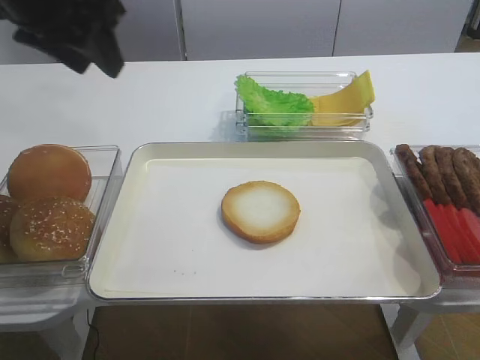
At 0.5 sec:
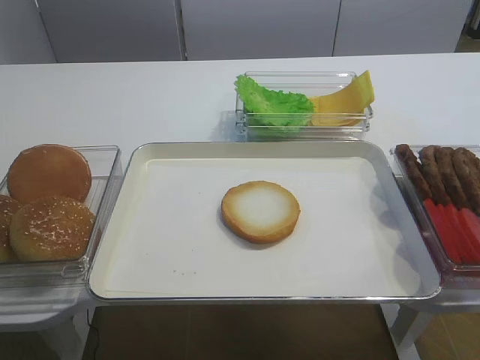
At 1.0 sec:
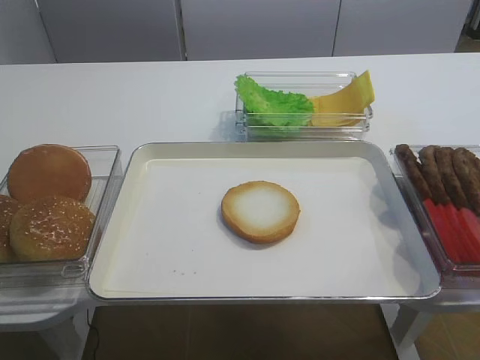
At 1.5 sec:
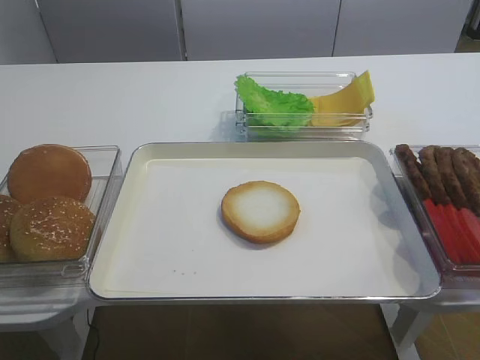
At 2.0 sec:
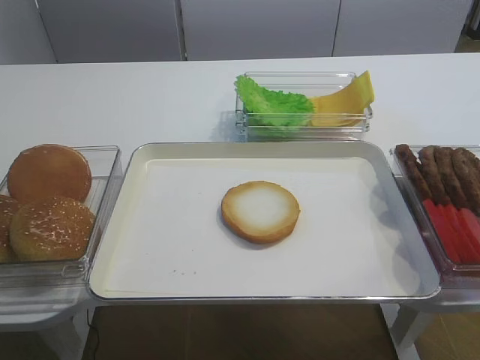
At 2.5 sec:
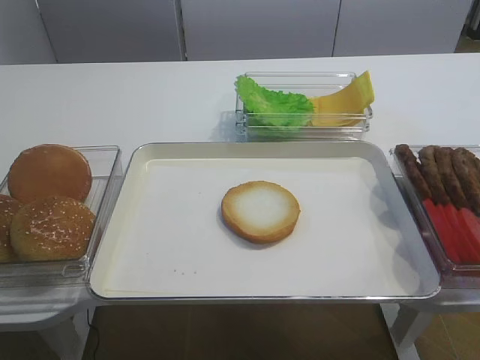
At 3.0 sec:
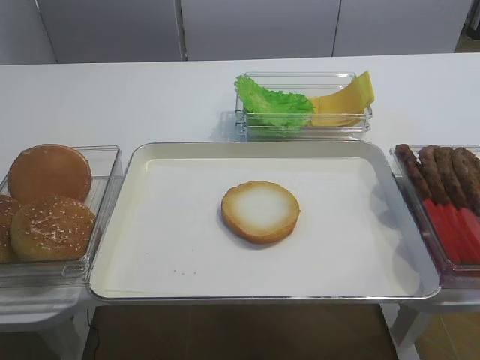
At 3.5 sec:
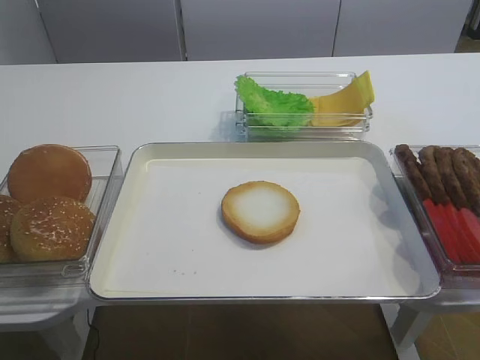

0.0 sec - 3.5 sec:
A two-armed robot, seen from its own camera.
0.0 sec - 2.0 sec: The left gripper heads backward, covering some 35 cm.

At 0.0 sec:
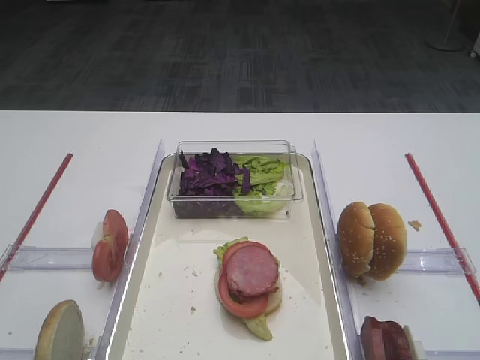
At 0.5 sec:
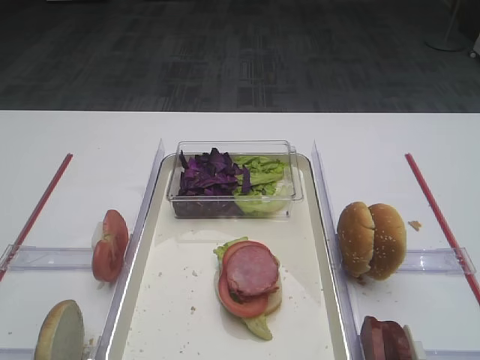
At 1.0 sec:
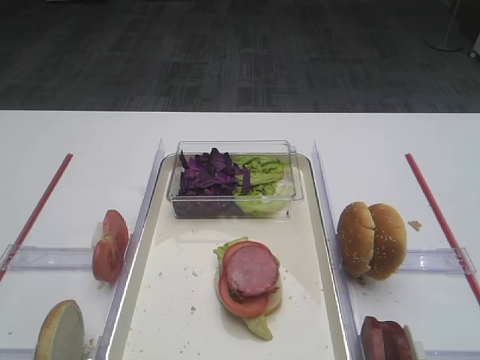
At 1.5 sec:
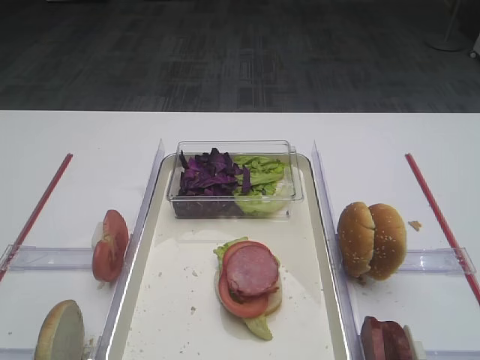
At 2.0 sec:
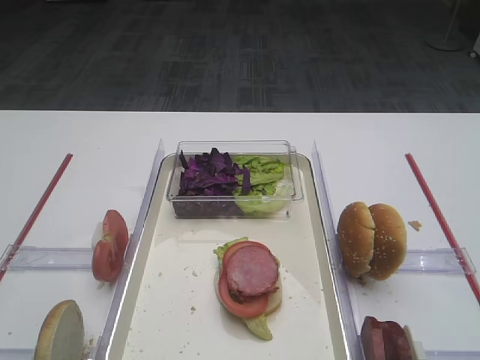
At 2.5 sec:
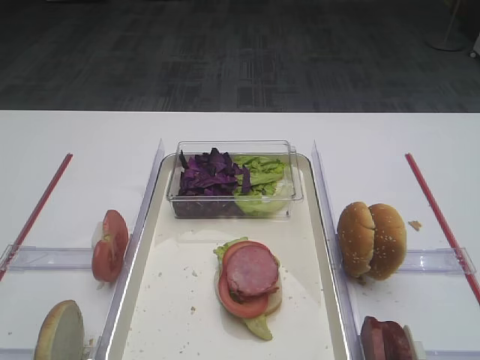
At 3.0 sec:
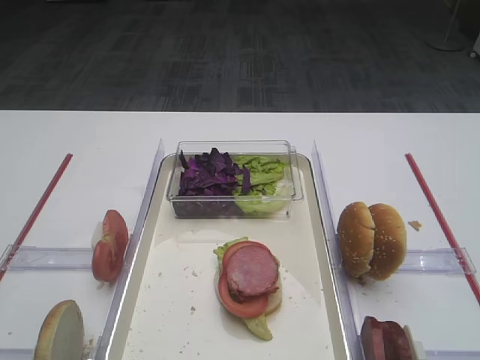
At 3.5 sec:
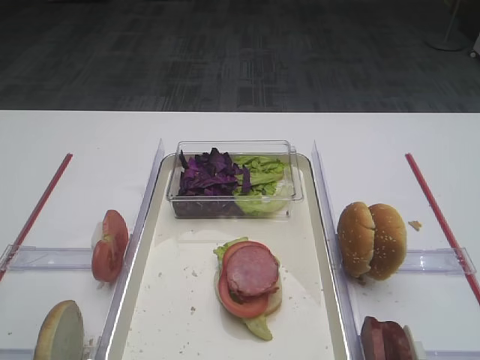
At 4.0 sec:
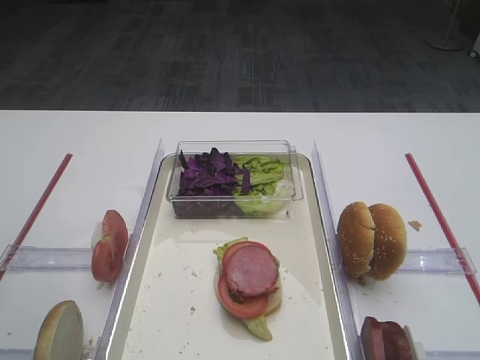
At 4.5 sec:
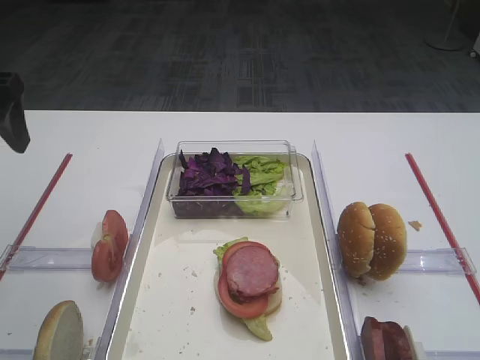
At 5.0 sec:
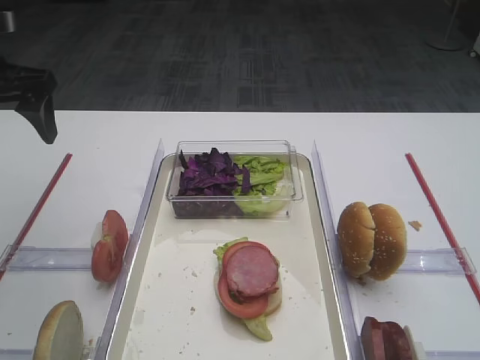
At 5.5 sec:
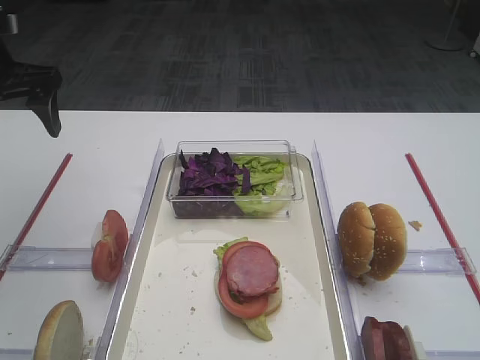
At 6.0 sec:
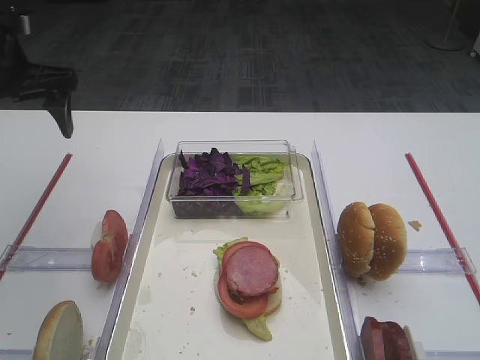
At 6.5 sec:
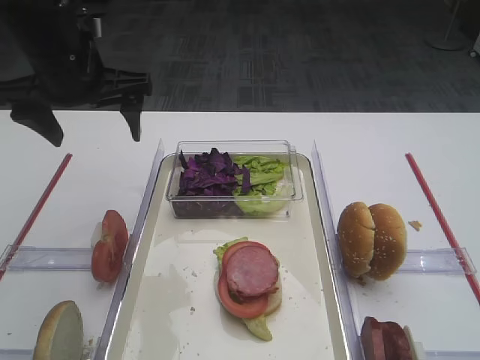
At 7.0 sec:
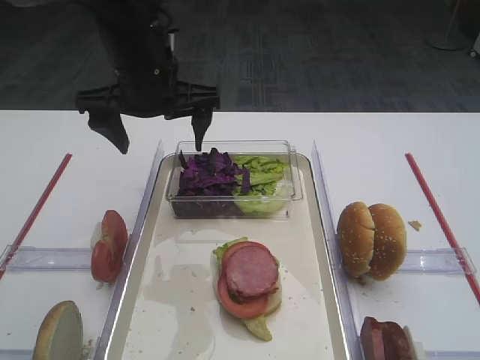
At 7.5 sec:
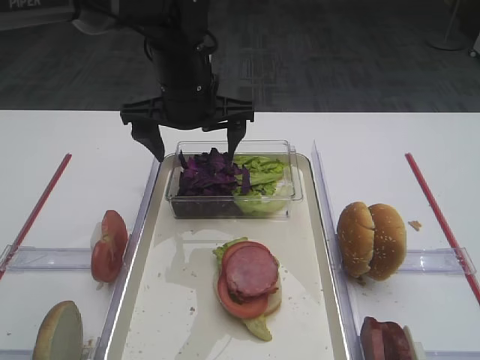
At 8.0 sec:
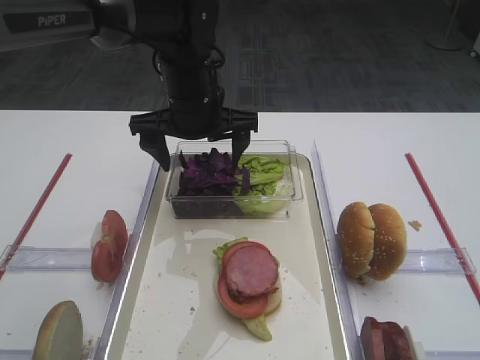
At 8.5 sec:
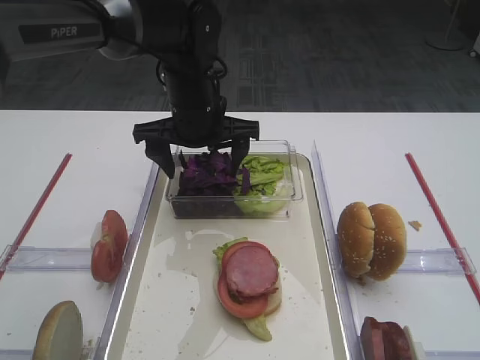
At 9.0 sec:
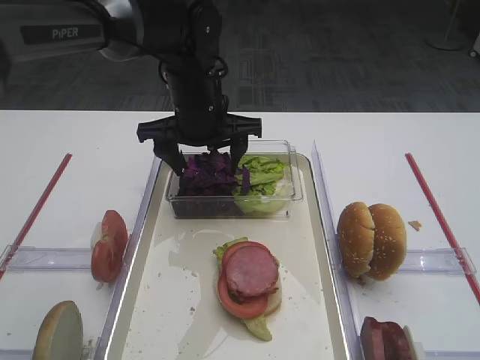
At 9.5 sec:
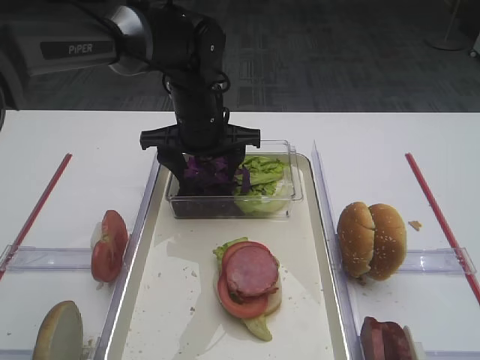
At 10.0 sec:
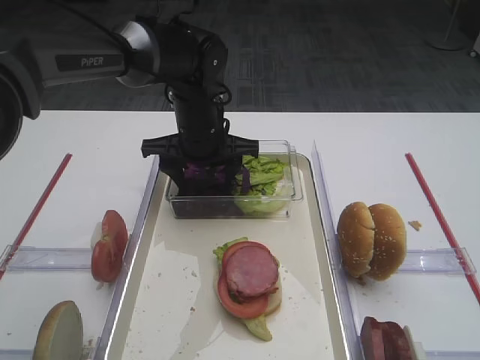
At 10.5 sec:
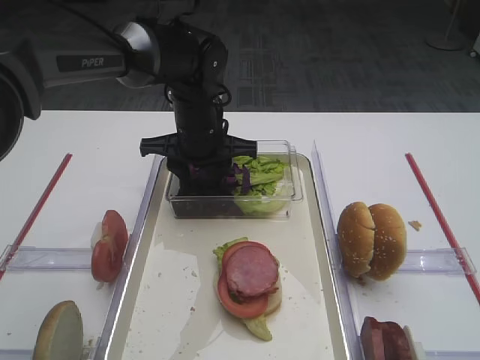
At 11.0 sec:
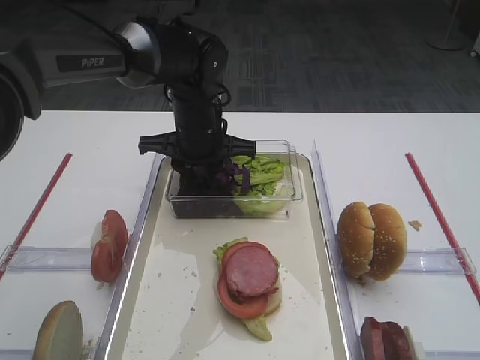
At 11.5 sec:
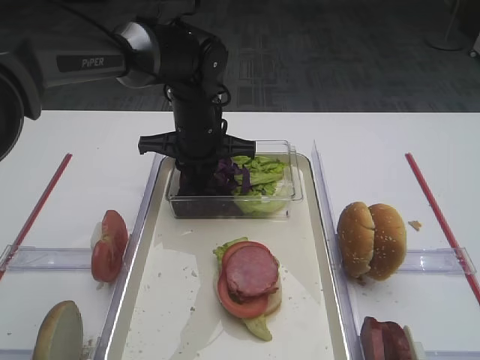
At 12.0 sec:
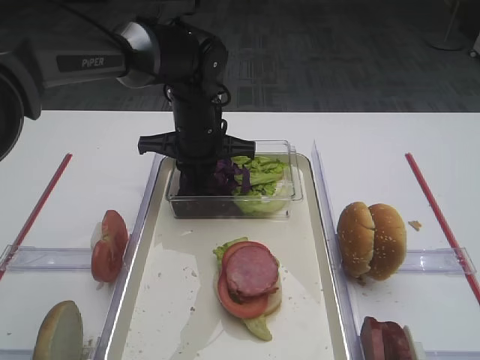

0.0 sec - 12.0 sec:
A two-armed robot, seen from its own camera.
4.0 sec - 6.0 sec: The left gripper is displaced forward by about 15 cm.
6.0 sec - 8.0 sec: The left gripper is displaced to the right by approximately 20 cm.
8.0 sec - 10.0 sec: The left gripper shifts some 5 cm downward.
10.0 sec - 12.0 sec: The left gripper closes up.

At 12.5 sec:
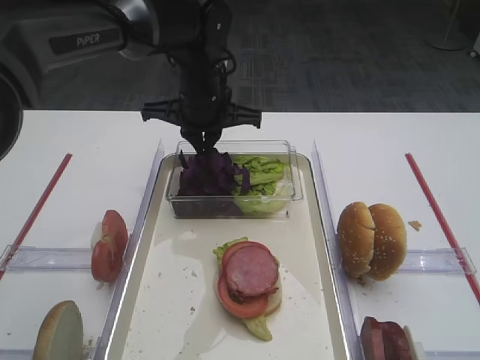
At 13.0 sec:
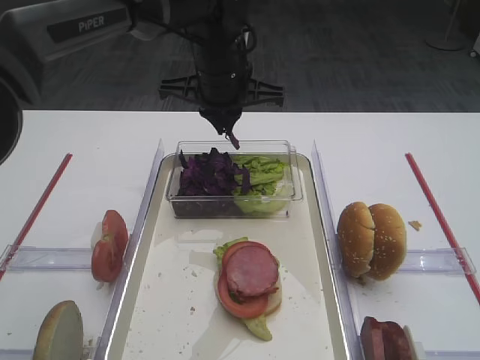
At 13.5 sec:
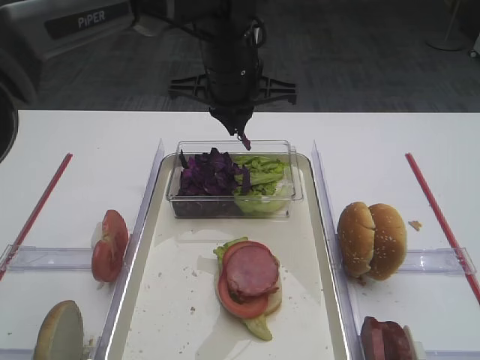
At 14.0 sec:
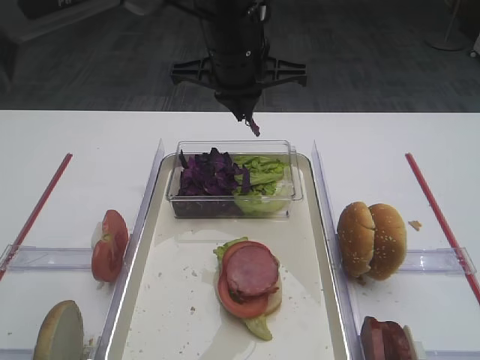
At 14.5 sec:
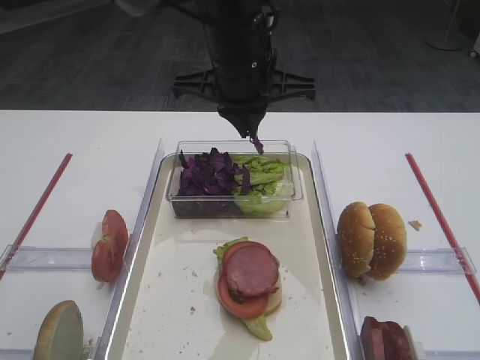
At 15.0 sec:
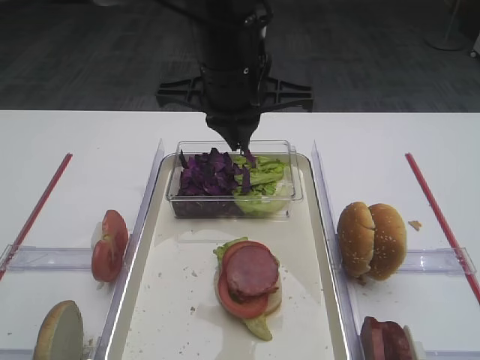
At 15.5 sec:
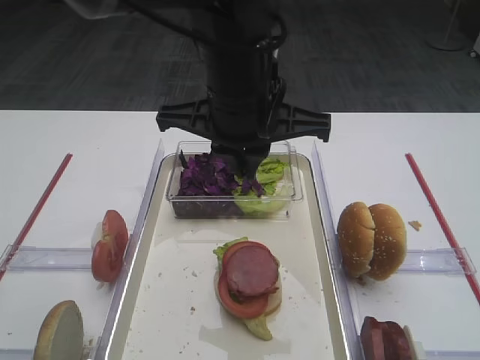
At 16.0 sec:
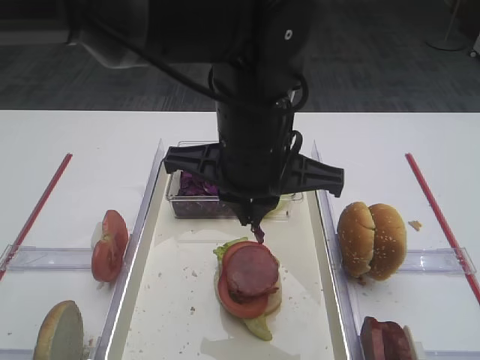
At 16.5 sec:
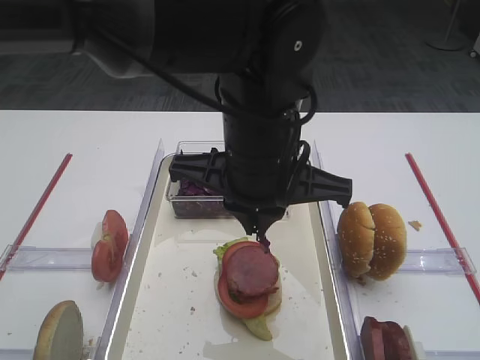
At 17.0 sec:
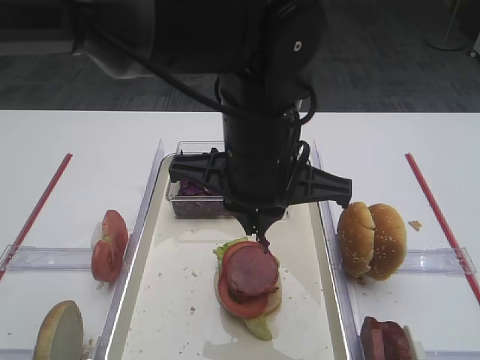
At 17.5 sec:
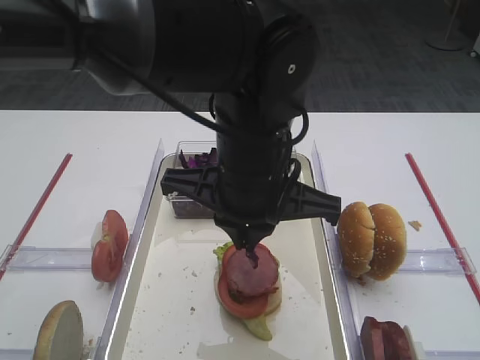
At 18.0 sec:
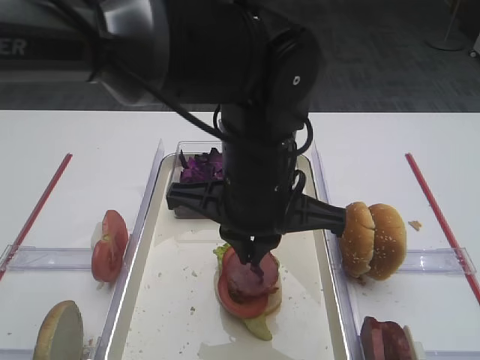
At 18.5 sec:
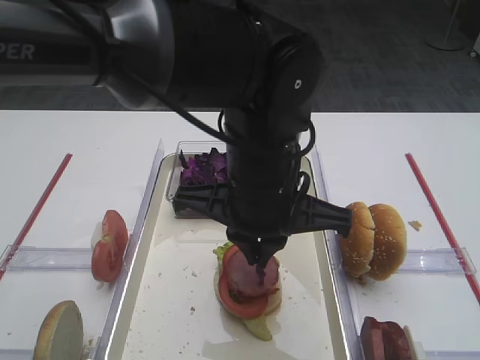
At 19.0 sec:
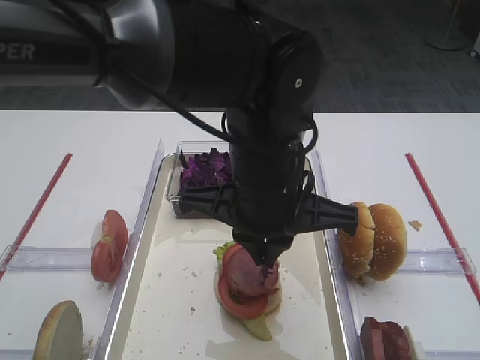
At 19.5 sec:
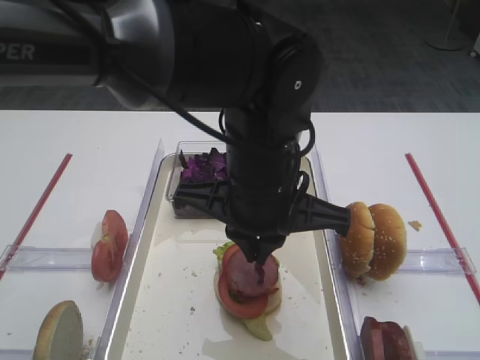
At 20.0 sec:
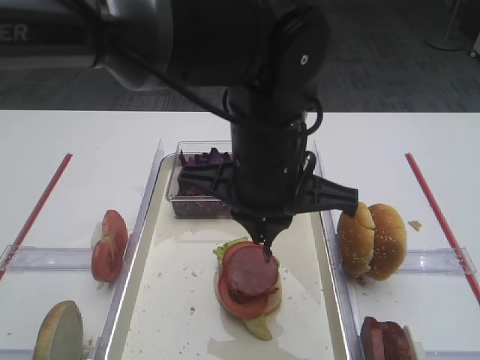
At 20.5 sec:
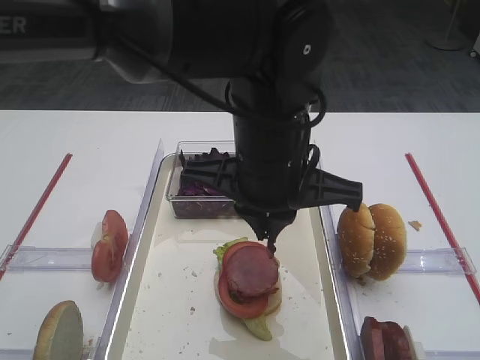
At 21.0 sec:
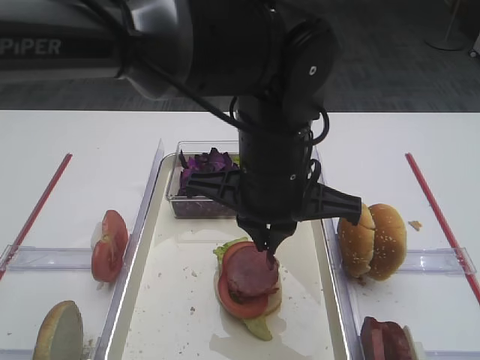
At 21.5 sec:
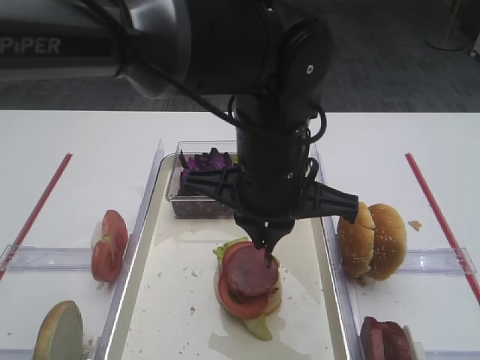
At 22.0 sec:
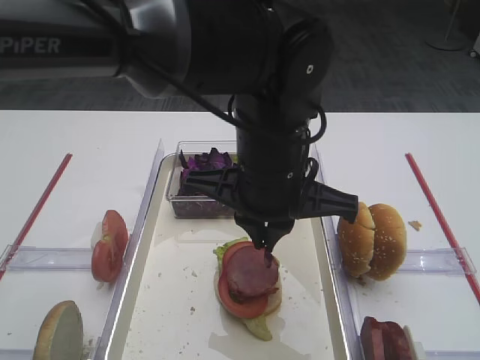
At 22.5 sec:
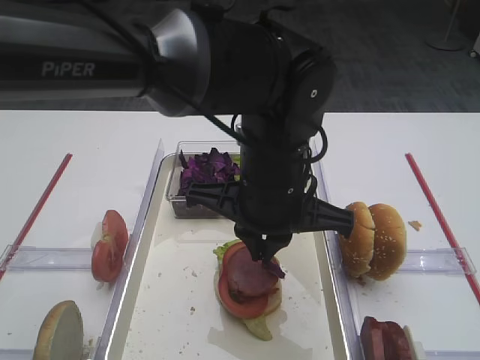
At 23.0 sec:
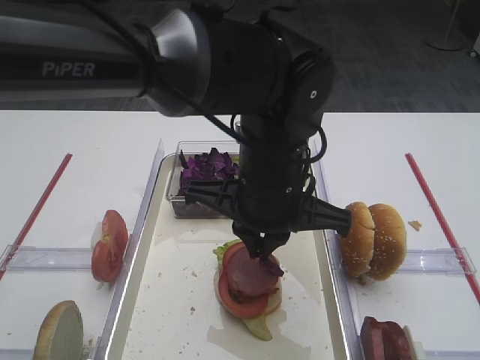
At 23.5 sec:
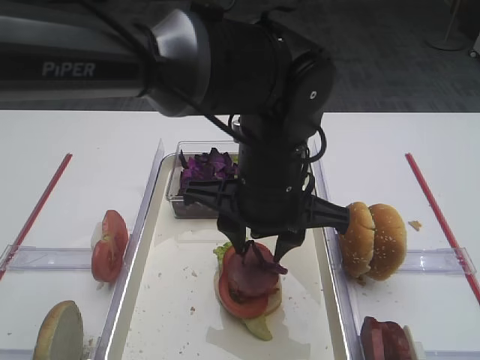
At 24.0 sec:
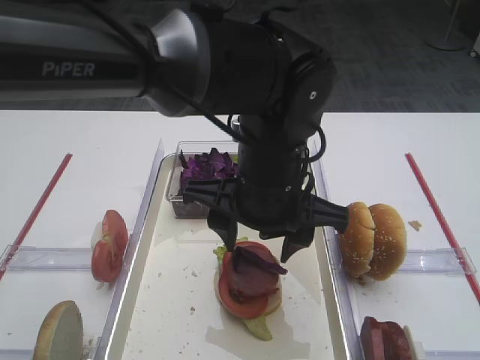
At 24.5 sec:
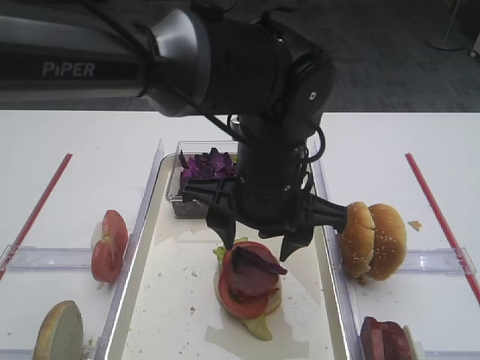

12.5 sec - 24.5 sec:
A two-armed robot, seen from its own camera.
12.5 sec - 14.5 sec: The left gripper is displaced upward and backward by approximately 10 cm.
14.5 sec - 16.5 sec: The left gripper is displaced backward by about 10 cm.
16.5 sec - 22.5 sec: The grippers stay close to where they were, moving slightly.
22.5 sec - 24.5 sec: The left gripper opens up.
